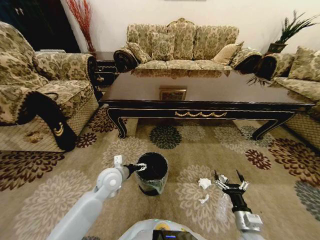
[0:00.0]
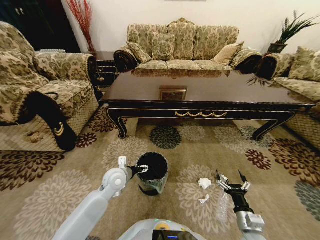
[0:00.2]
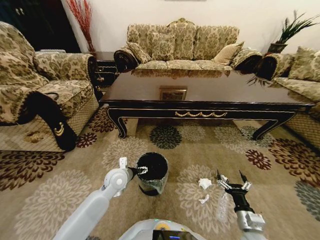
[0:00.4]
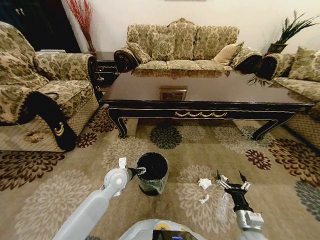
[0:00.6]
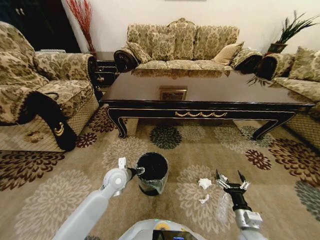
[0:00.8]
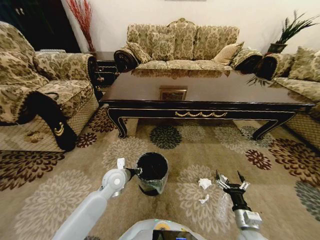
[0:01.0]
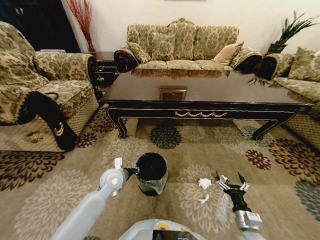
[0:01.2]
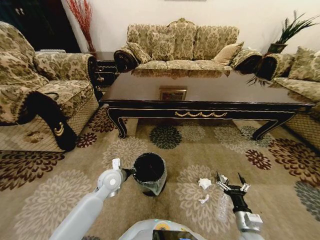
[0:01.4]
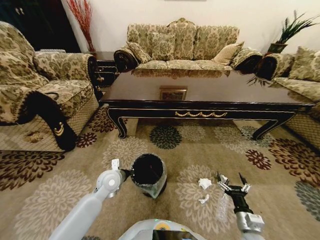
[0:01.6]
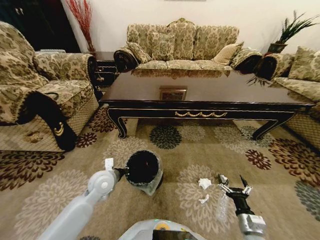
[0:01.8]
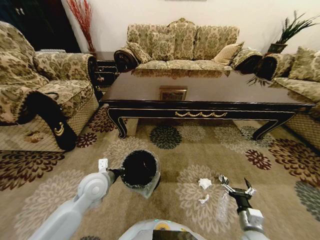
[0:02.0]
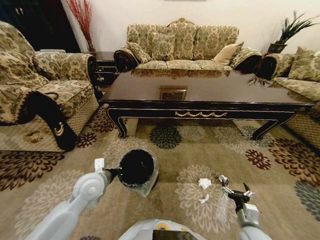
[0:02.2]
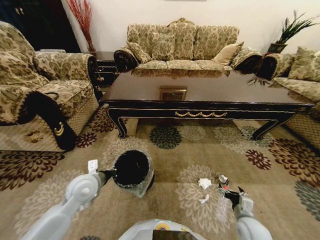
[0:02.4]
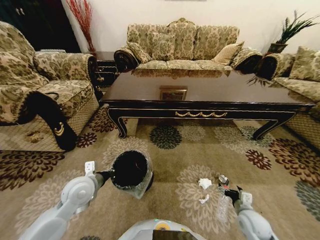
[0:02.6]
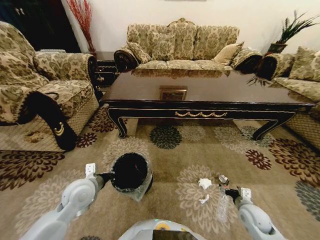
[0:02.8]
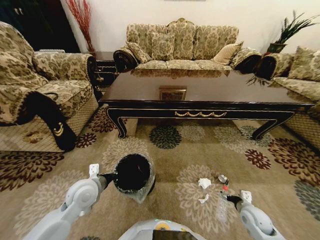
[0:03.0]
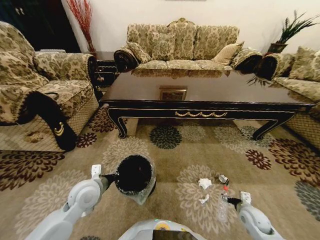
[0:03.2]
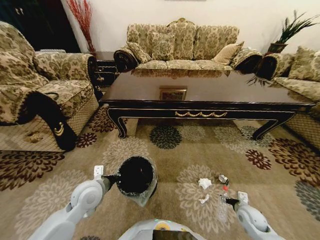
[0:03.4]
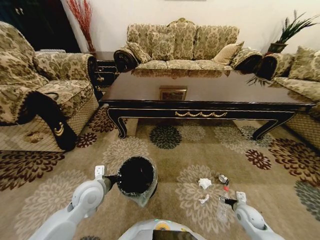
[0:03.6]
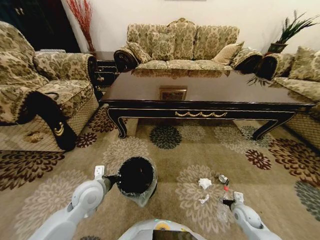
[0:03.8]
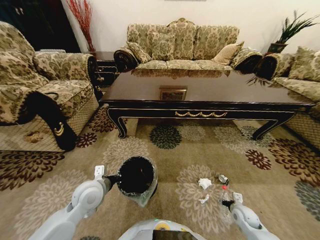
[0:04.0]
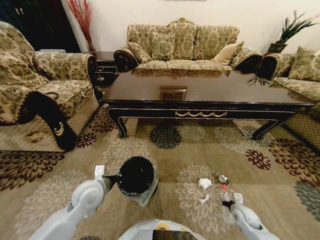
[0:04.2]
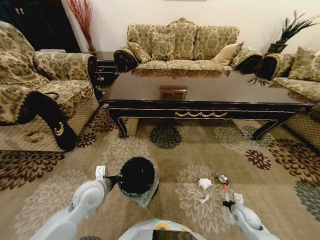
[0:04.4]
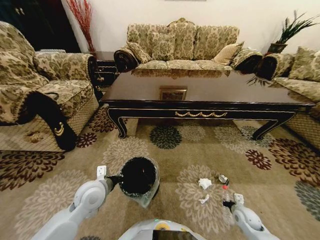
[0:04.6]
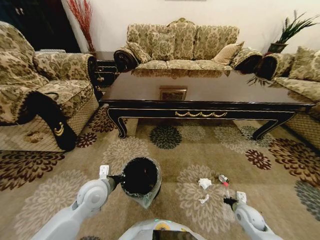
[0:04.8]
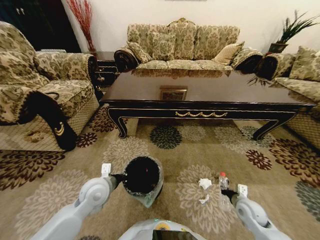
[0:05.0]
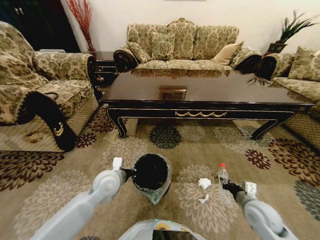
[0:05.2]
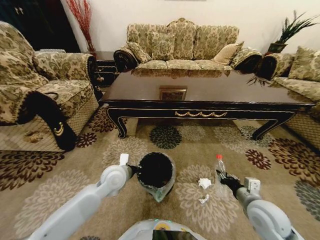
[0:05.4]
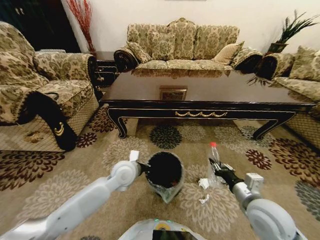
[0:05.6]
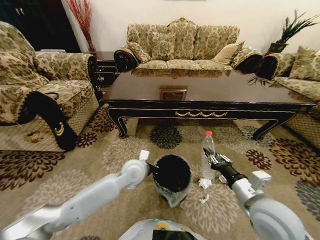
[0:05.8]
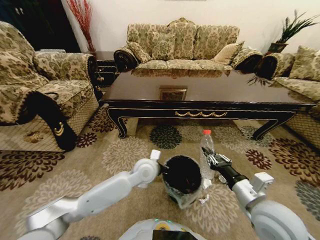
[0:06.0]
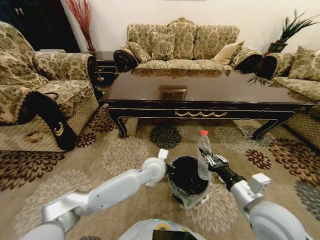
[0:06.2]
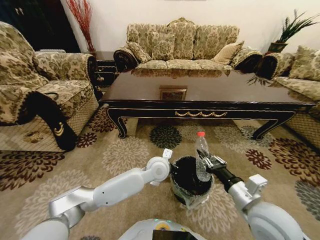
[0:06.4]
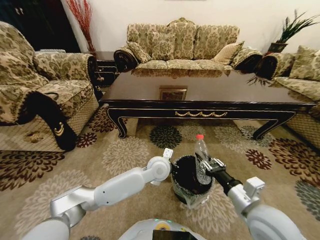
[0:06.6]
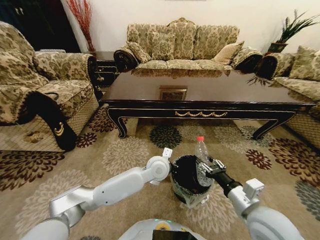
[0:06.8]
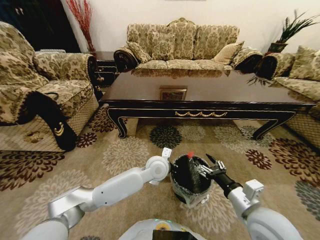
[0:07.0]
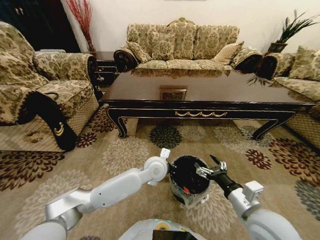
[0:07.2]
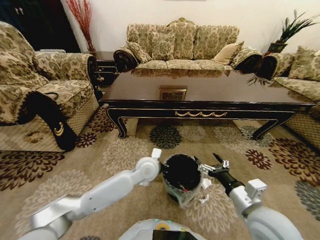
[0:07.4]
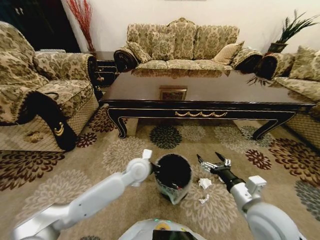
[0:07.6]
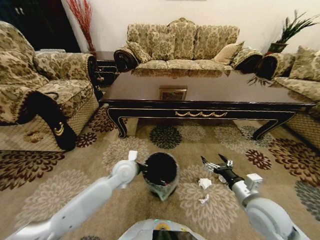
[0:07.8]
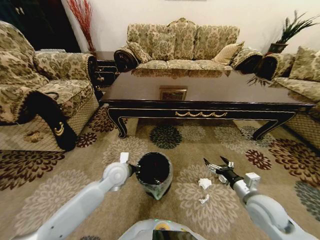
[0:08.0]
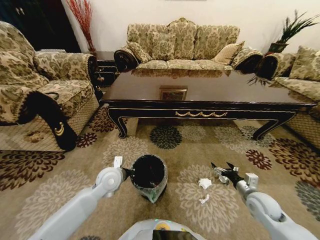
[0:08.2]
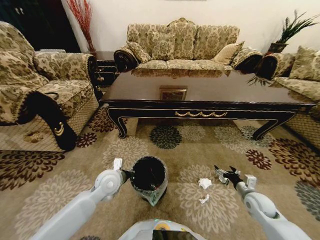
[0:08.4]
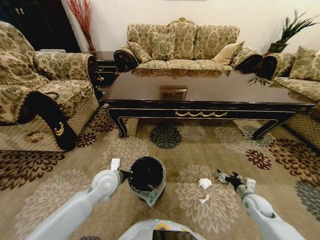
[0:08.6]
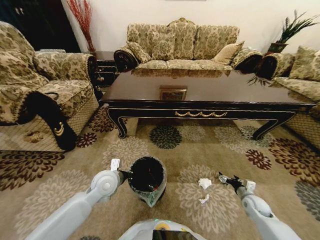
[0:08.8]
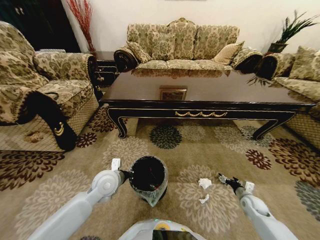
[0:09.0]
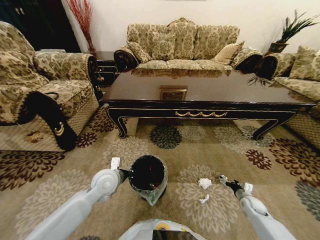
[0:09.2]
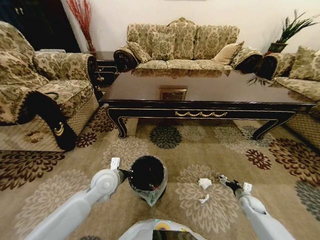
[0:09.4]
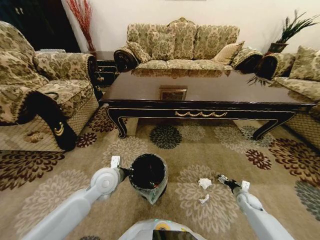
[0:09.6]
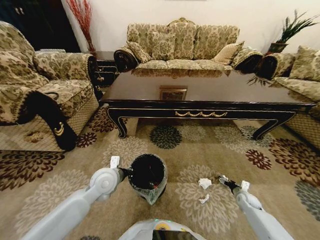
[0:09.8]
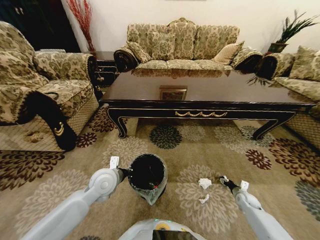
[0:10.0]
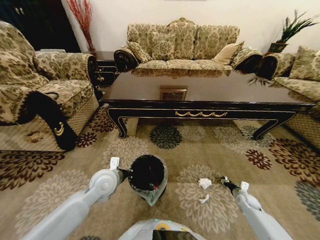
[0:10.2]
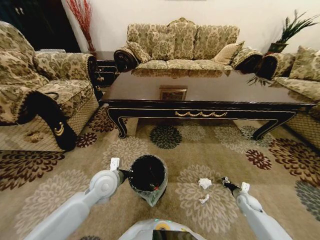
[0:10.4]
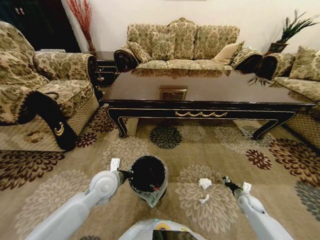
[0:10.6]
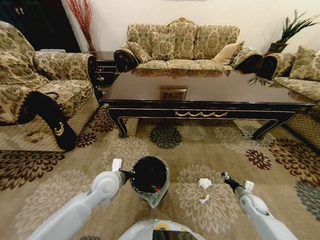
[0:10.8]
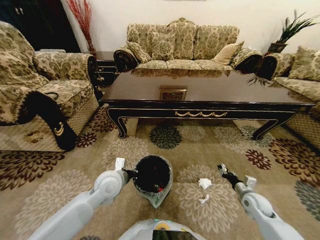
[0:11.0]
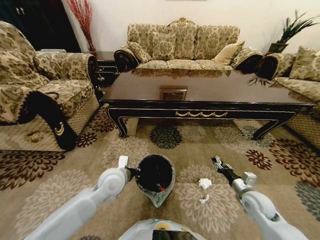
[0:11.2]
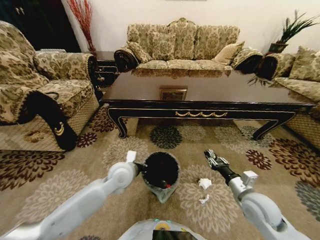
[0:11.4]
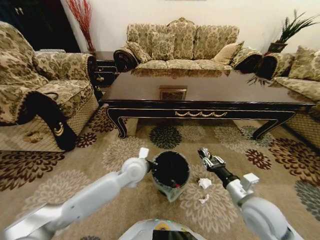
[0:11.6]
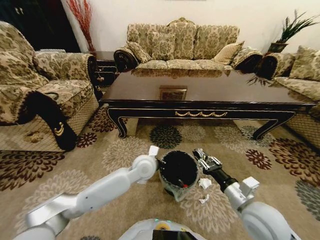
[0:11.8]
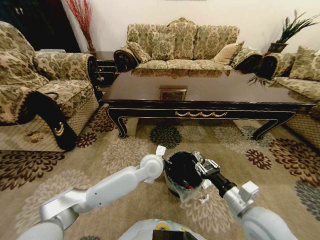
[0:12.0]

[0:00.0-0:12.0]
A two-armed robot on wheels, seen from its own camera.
Task of the whole recording: Move to the front of the table and pick up the trash from the floor, then place it into the trash bin.
0:00.0 to 0:01.6: The left gripper closes its fingers.
0:01.6 to 0:03.0: The right gripper travels forward and to the right by approximately 10 cm, while the left gripper shifts roughly 10 cm backward and upward.
0:03.0 to 0:04.4: The right gripper goes some 5 cm downward, and closes up.
0:04.4 to 0:06.0: The right gripper moves upward and to the left, approximately 30 cm, while the left gripper heads to the right and forward, covering about 20 cm.
0:06.0 to 0:07.6: The left gripper travels to the right and back again, roughly 5 cm each way. The right gripper opens its fingers.
0:07.6 to 0:09.0: The right gripper is displaced downward and to the right by some 30 cm; the left gripper goes about 10 cm to the left and backward.
0:09.0 to 0:10.4: The right gripper moves roughly 5 cm, and closes up.
0:10.4 to 0:12.0: The right gripper moves upward, to the left and backward, about 40 cm. Meanwhile the left gripper is displaced to the right and forward by roughly 20 cm.

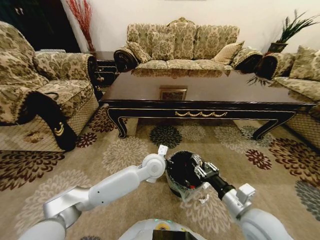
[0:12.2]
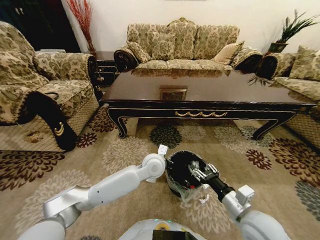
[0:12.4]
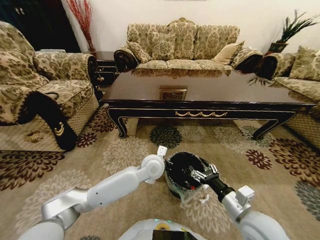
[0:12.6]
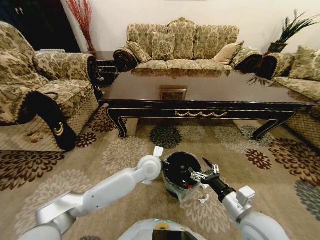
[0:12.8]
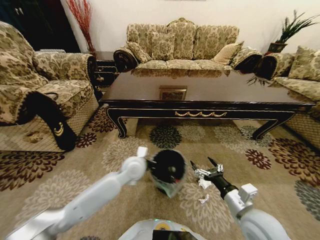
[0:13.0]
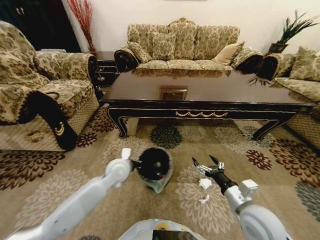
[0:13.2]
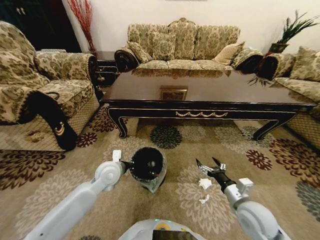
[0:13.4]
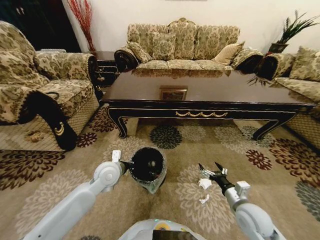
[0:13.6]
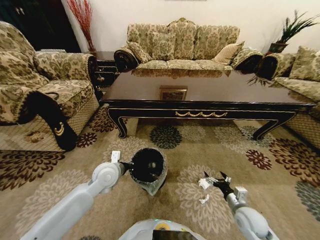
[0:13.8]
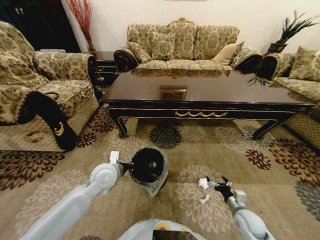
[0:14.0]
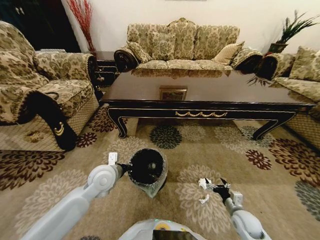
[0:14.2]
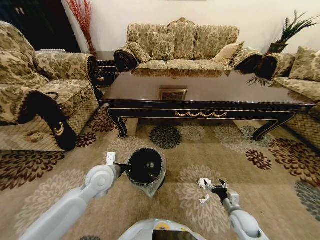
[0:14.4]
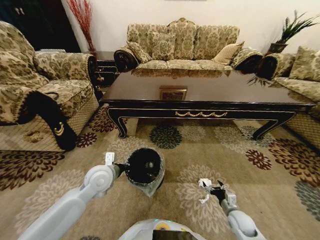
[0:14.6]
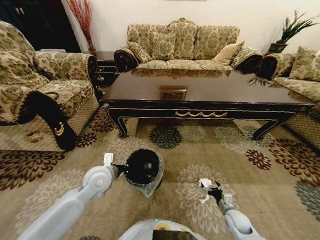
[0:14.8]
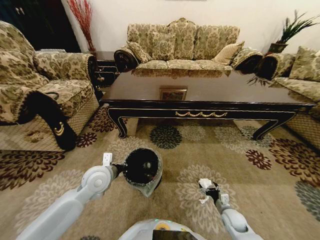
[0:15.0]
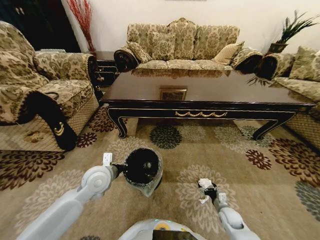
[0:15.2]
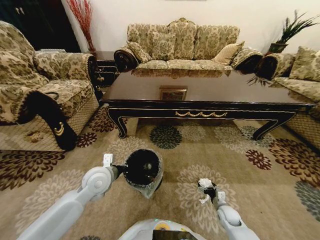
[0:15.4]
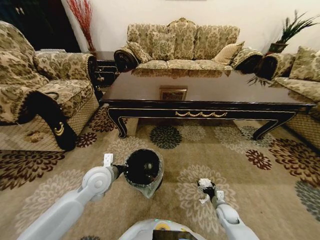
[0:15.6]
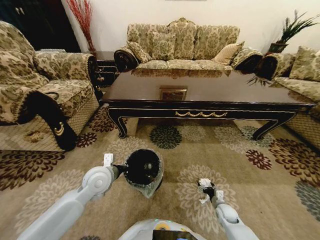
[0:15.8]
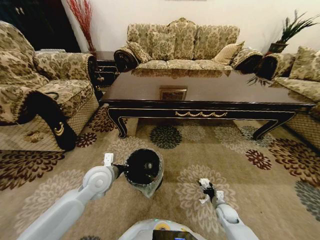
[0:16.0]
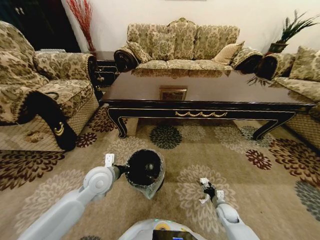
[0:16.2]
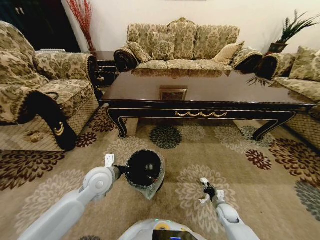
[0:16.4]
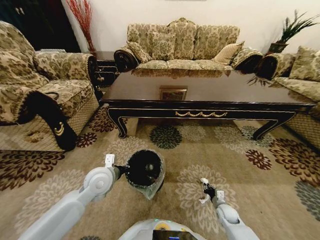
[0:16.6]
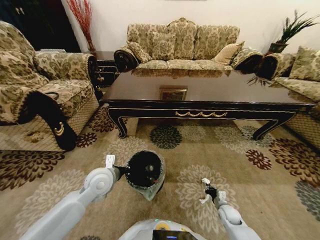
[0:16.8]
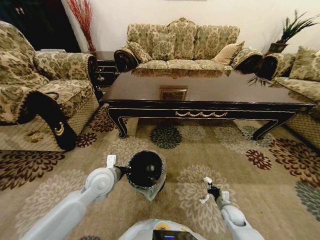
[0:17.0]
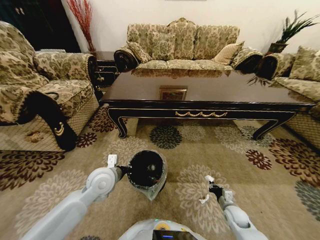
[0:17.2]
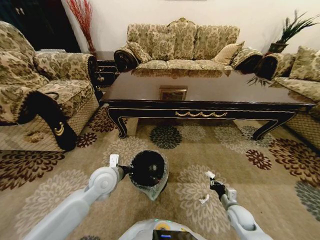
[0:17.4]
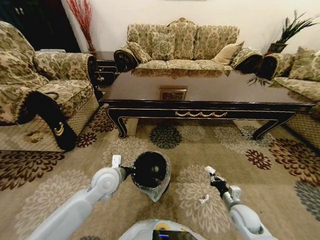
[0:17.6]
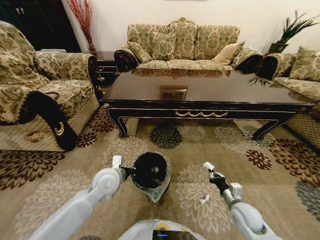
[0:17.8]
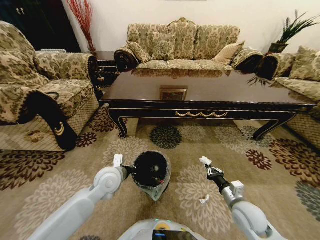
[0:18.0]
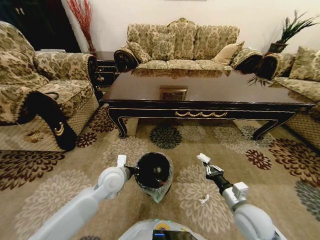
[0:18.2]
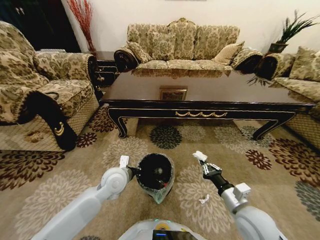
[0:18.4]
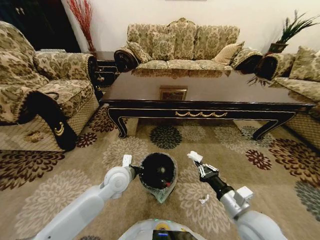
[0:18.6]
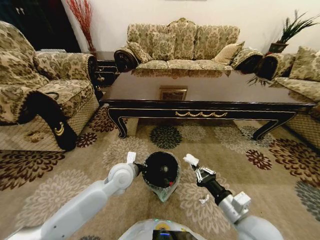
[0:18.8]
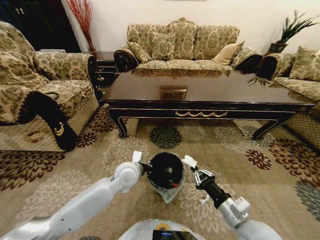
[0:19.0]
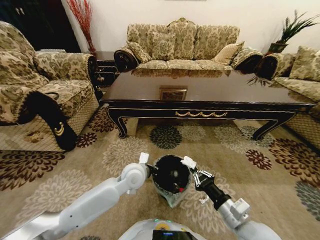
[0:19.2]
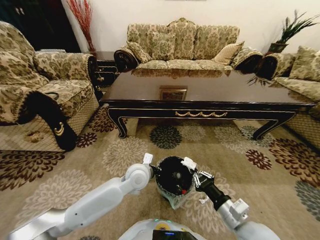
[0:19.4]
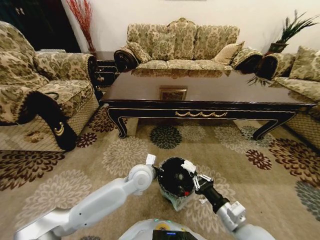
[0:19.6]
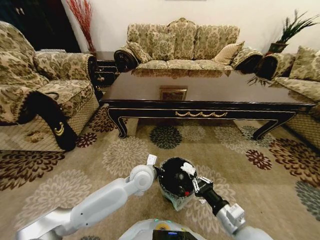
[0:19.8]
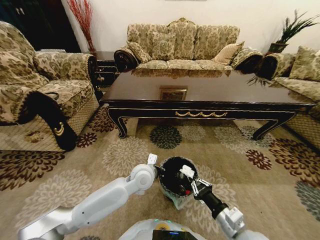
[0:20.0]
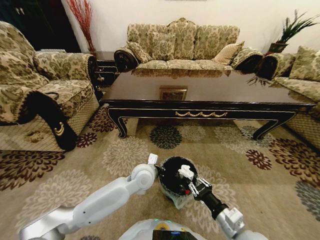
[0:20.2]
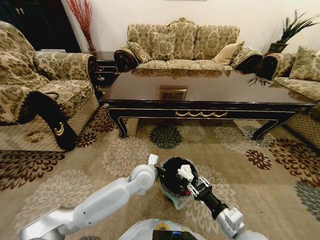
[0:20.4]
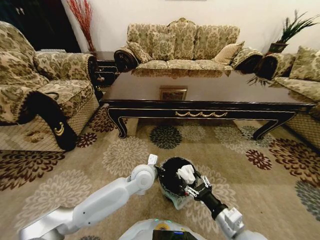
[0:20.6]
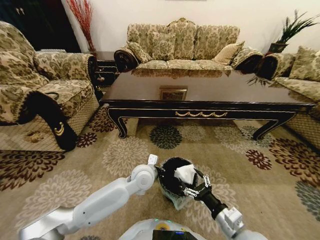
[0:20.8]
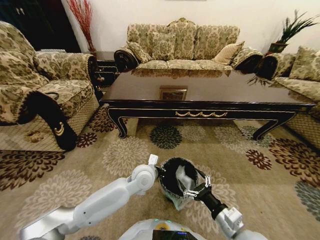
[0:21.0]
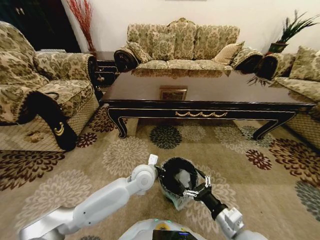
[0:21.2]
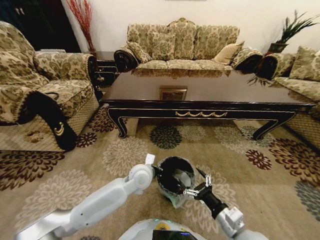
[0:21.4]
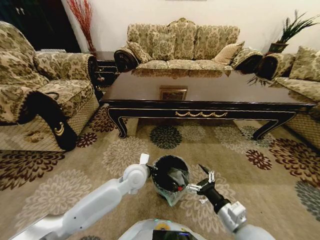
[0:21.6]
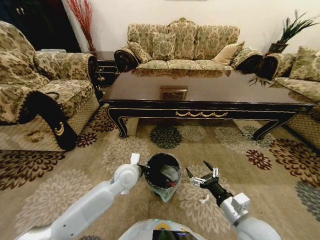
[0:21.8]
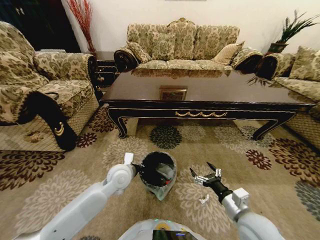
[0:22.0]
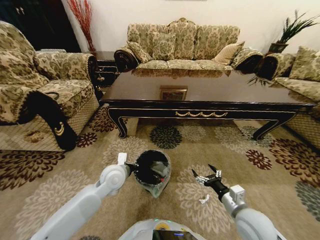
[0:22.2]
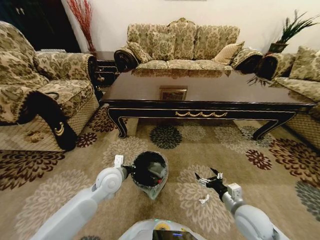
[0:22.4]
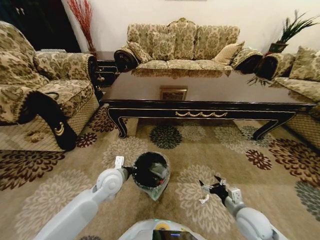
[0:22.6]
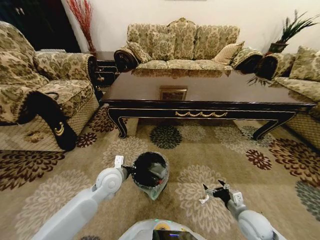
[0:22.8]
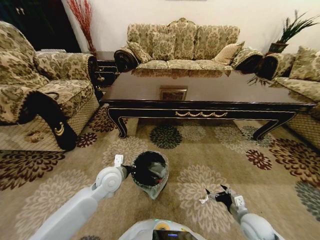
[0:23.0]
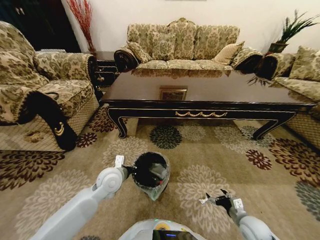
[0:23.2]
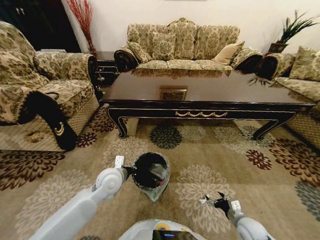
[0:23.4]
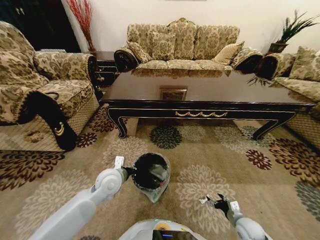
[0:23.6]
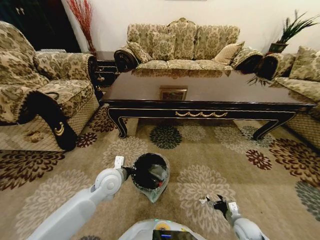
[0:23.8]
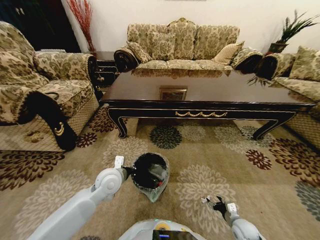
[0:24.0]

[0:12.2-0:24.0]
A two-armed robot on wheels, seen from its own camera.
Task of the whole recording: Move to the front of the table and pick up the trash from the floor, then place it into the trash bin.
0:12.2 to 0:13.6: The left gripper shifts about 20 cm to the left. Meanwhile the right gripper travels downward and to the right by some 10 cm, and opens its fingers.
0:13.6 to 0:15.2: The right gripper heads downward, covering some 20 cm.
0:15.2 to 0:16.6: The right gripper closes its fingers.
0:16.6 to 0:18.2: The right gripper moves upward, about 25 cm.
0:18.2 to 0:19.6: The right gripper heads backward, covering approximately 5 cm, while the left gripper is displaced to the right by approximately 10 cm.
0:19.6 to 0:21.0: The right gripper opens.
0:21.0 to 0:22.6: The left gripper travels to the left by about 15 cm, while the right gripper goes roughly 15 cm to the right, forward and downward.
0:22.6 to 0:24.0: The right gripper heads downward, covering roughly 15 cm.
